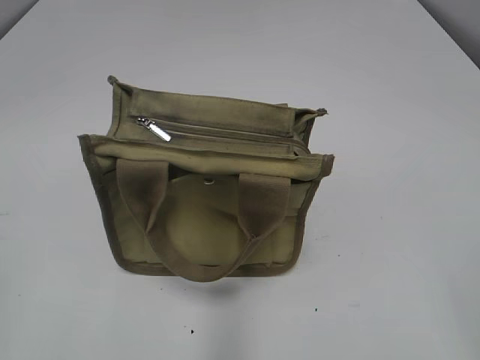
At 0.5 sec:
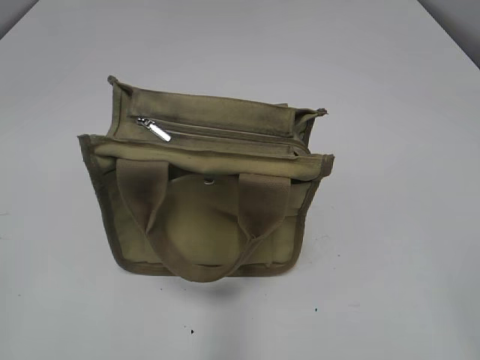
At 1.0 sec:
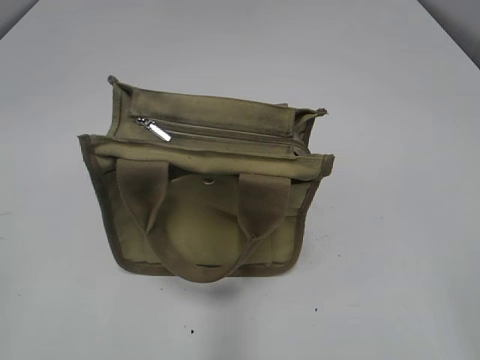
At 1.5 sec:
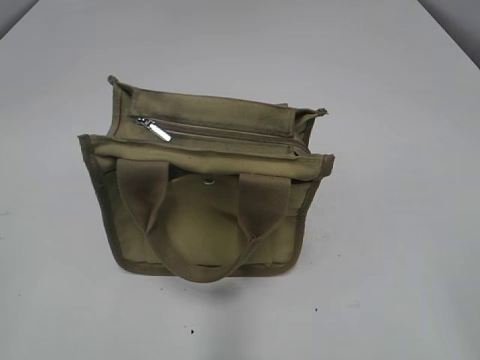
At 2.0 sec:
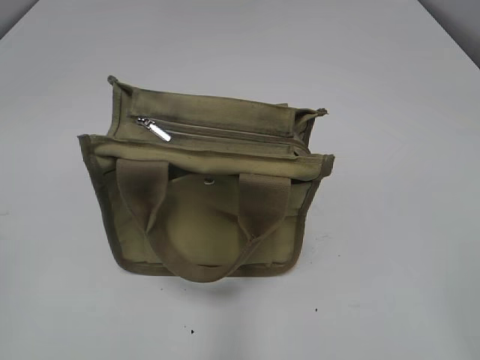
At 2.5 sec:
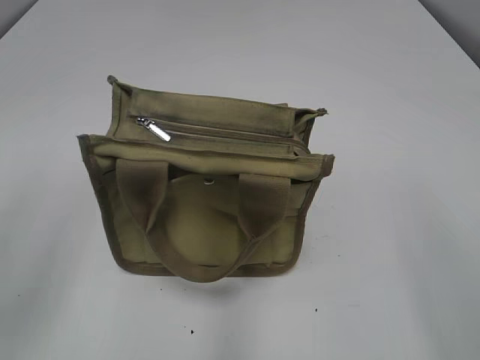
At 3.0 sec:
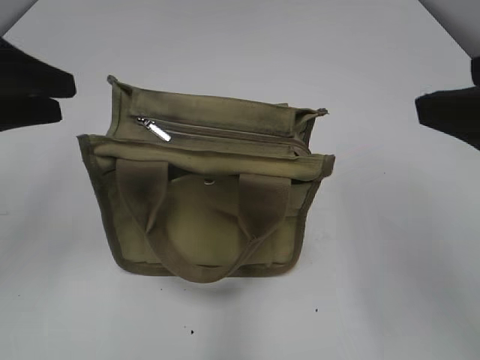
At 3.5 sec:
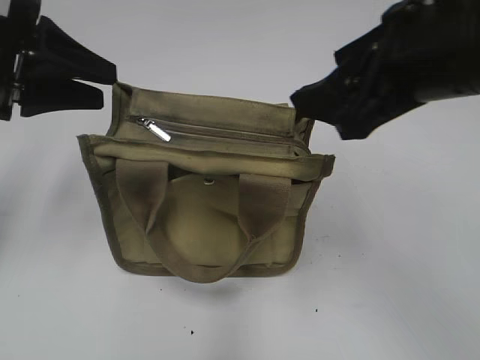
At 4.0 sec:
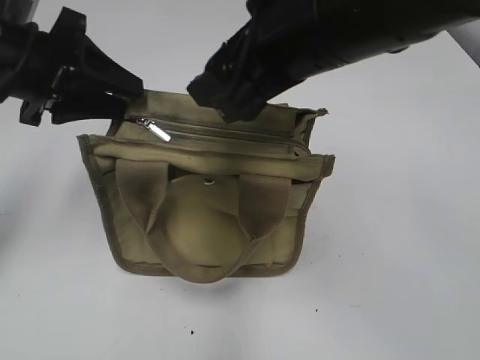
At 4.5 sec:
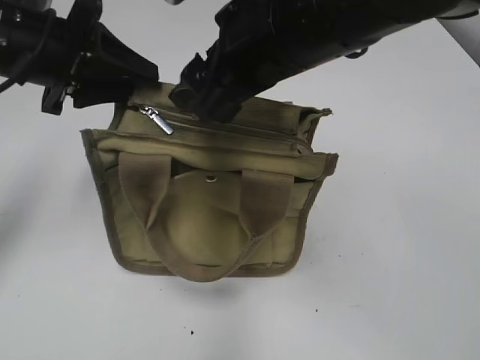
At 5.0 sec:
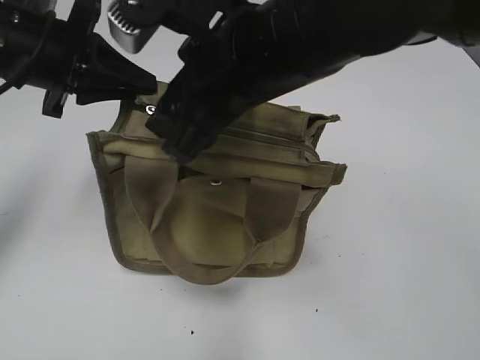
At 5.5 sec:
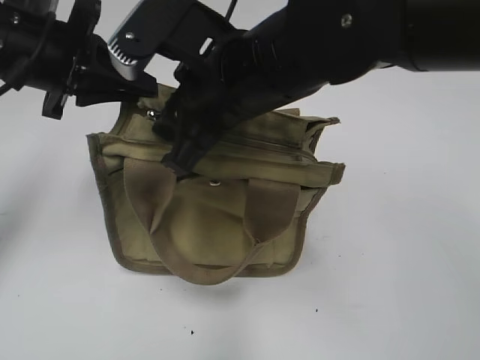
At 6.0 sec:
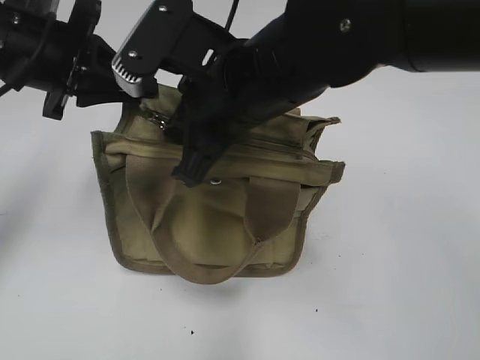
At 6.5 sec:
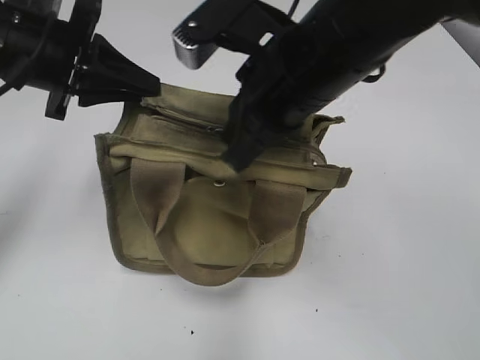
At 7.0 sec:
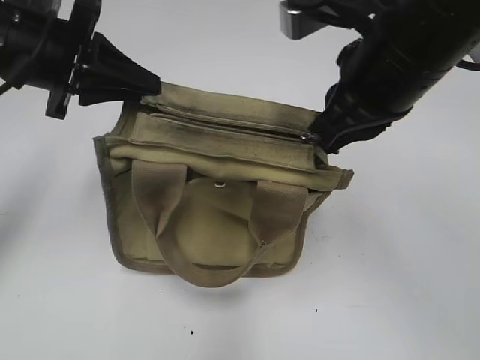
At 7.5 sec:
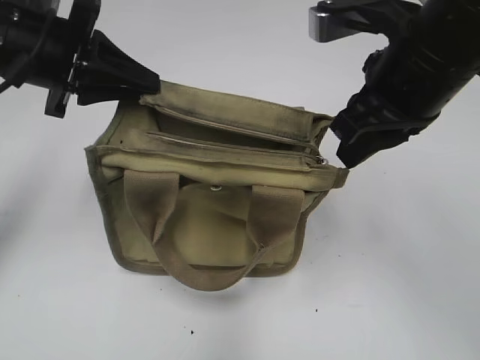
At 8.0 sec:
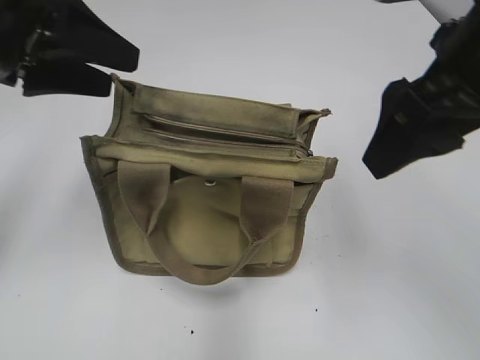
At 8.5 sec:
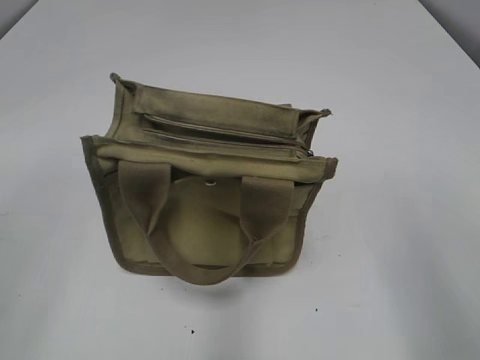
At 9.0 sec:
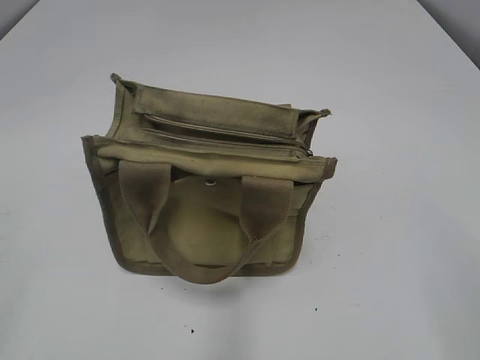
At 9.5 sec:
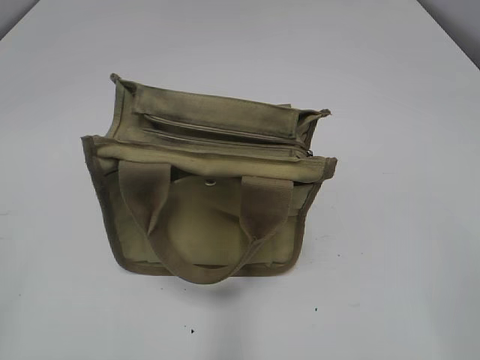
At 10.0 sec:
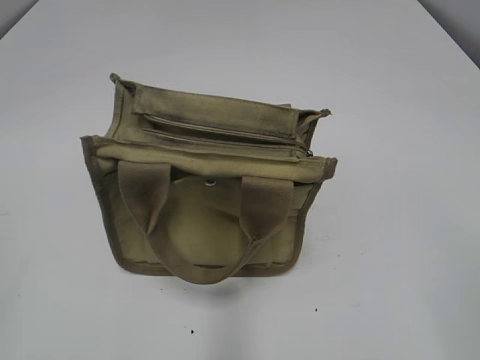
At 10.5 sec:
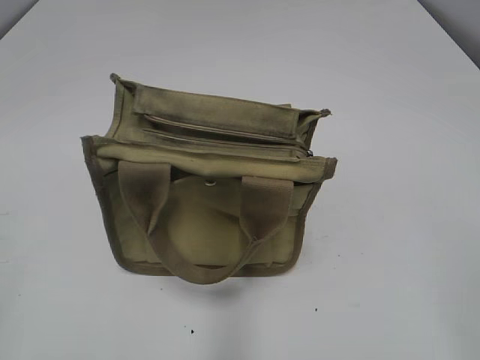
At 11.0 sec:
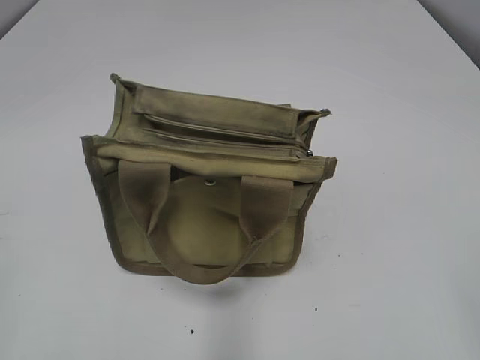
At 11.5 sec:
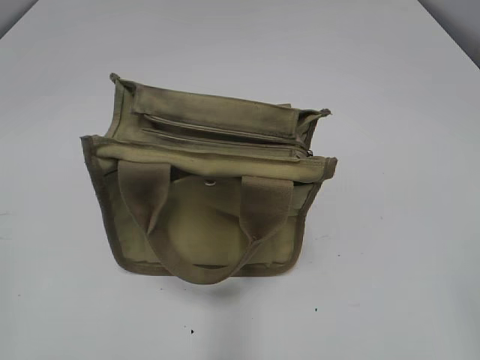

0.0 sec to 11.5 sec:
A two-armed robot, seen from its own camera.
Step, 0.0 sec to 7.0 sec: Pull open the zipper with your right hand.
2.0 sec to 4.0 sec: The right gripper goes about 35 cm forward and to the left; the left gripper heads forward, covering some 30 cm.
4.0 sec to 6.0 sec: The left gripper closes its fingers, while the right gripper is displaced downward and to the left by roughly 10 cm, and closes.
6.0 sec to 7.5 sec: The right gripper travels to the right by approximately 15 cm.
7.5 sec to 9.5 sec: The left gripper goes approximately 35 cm backward and to the left, and opens up. Meanwhile the right gripper travels backward and to the right by roughly 30 cm, and opens.
